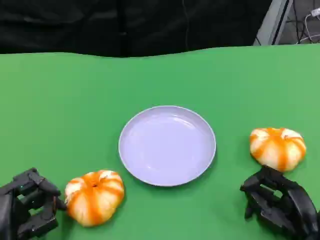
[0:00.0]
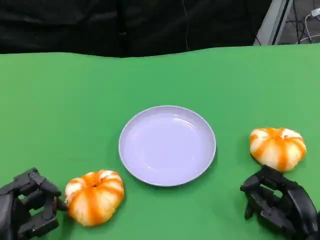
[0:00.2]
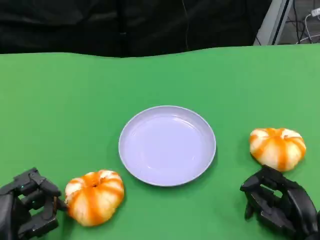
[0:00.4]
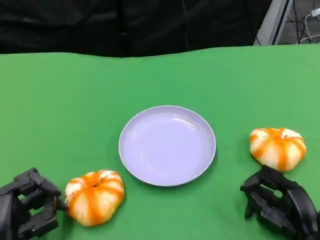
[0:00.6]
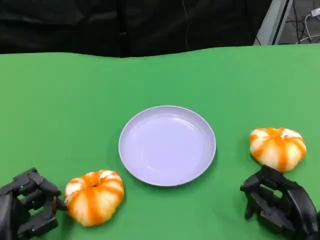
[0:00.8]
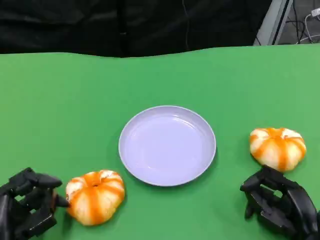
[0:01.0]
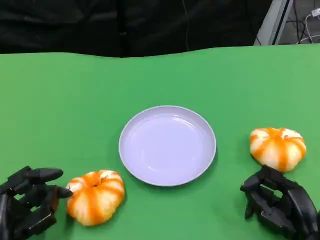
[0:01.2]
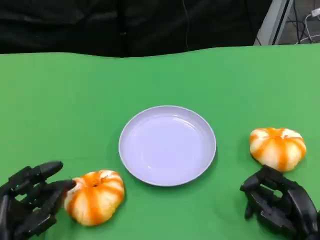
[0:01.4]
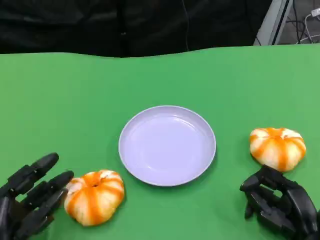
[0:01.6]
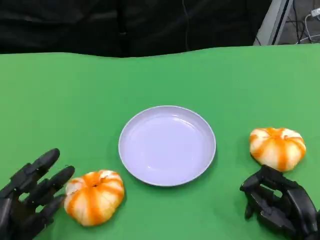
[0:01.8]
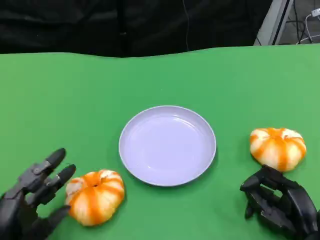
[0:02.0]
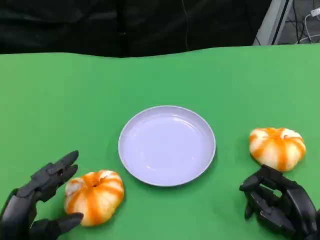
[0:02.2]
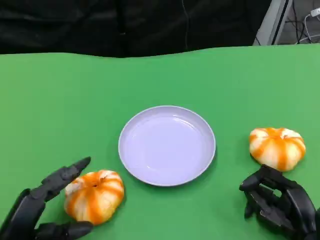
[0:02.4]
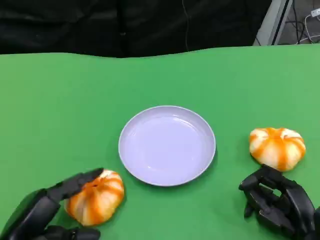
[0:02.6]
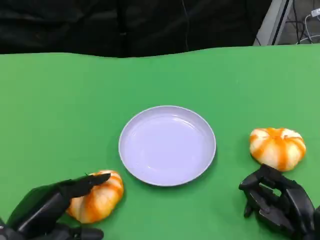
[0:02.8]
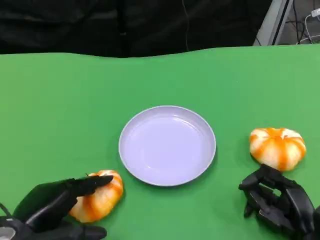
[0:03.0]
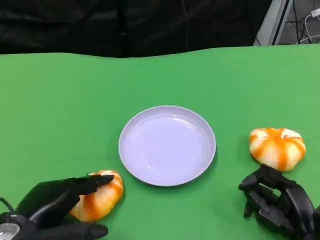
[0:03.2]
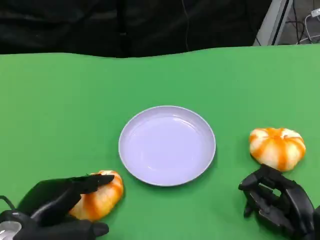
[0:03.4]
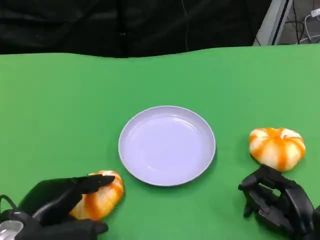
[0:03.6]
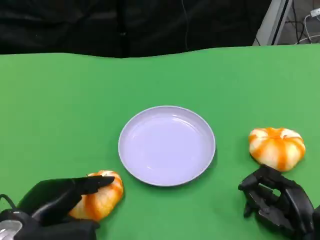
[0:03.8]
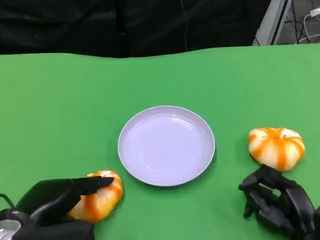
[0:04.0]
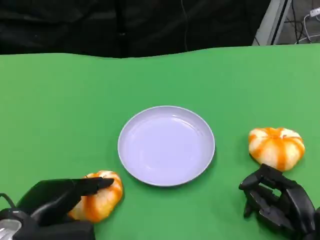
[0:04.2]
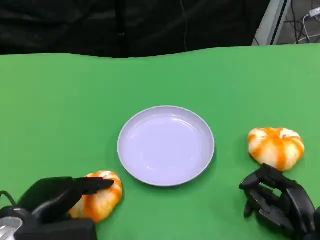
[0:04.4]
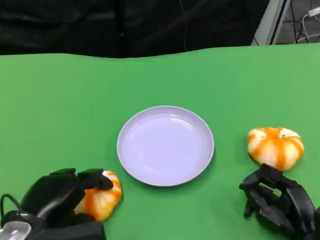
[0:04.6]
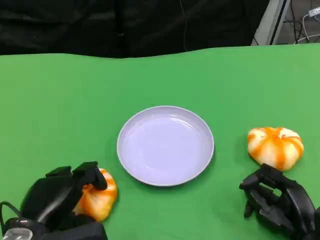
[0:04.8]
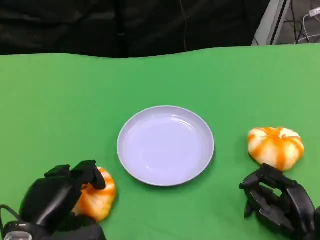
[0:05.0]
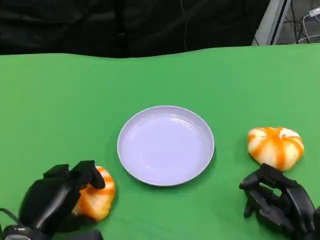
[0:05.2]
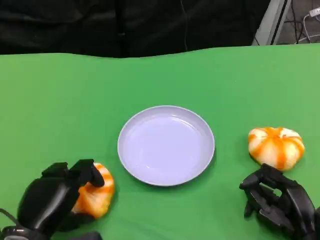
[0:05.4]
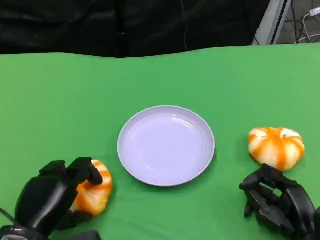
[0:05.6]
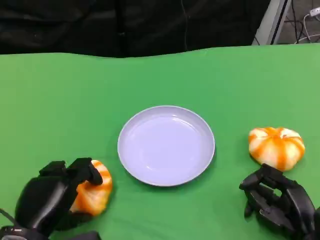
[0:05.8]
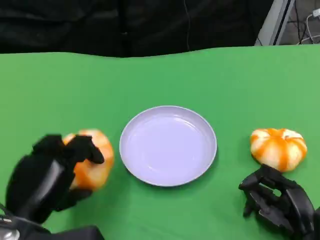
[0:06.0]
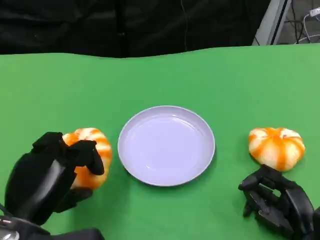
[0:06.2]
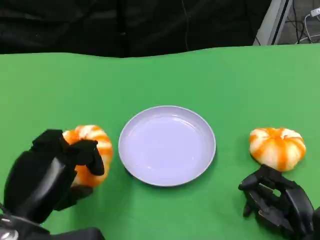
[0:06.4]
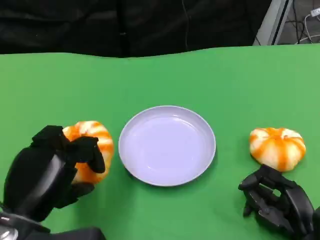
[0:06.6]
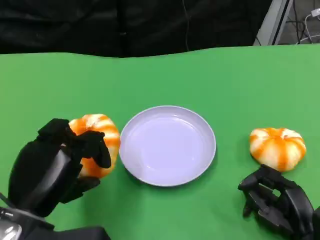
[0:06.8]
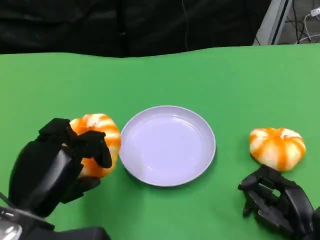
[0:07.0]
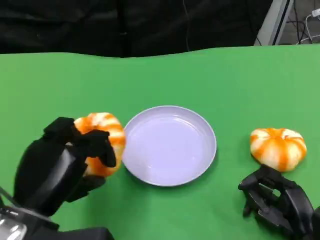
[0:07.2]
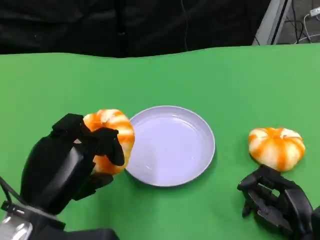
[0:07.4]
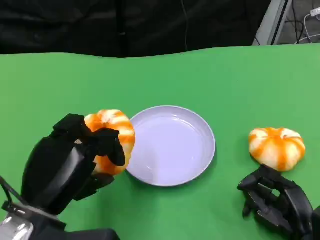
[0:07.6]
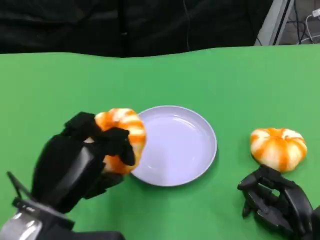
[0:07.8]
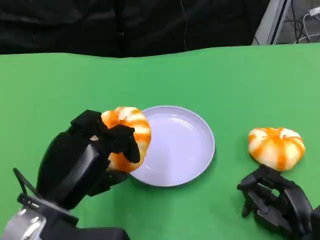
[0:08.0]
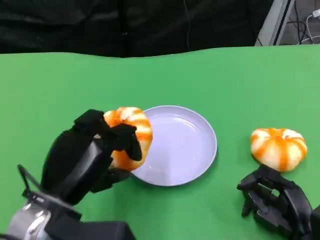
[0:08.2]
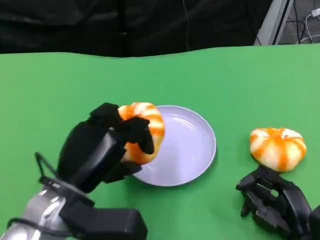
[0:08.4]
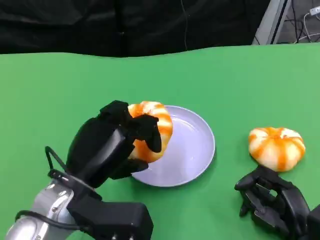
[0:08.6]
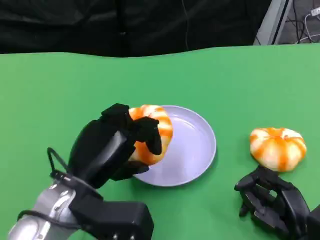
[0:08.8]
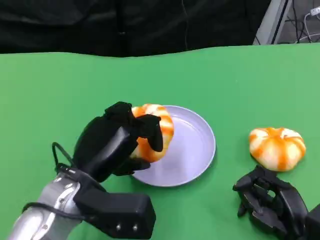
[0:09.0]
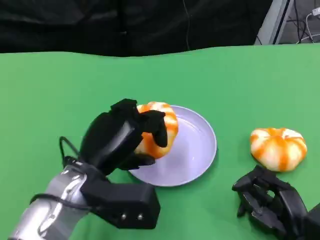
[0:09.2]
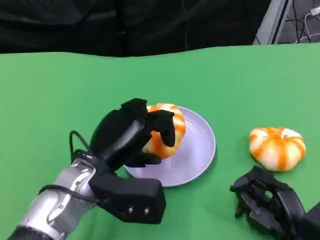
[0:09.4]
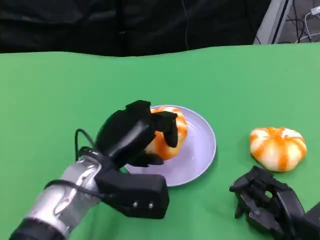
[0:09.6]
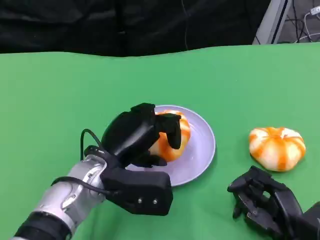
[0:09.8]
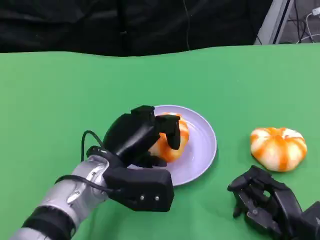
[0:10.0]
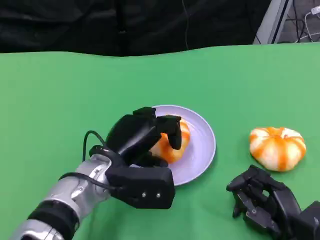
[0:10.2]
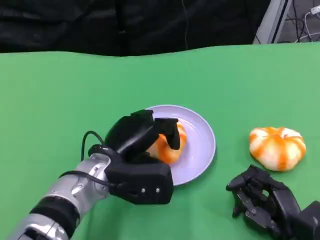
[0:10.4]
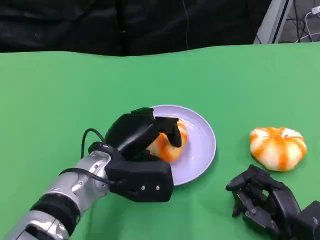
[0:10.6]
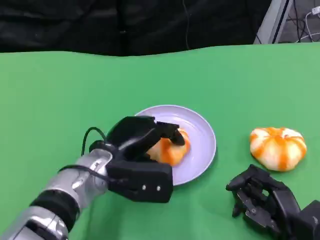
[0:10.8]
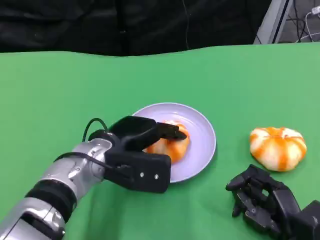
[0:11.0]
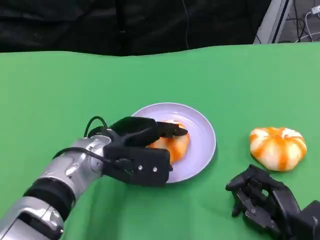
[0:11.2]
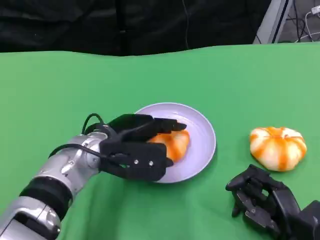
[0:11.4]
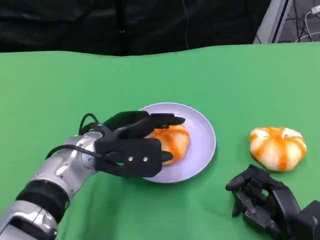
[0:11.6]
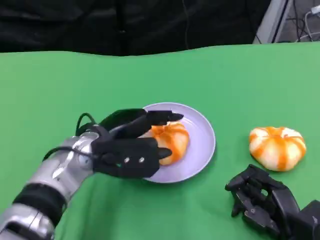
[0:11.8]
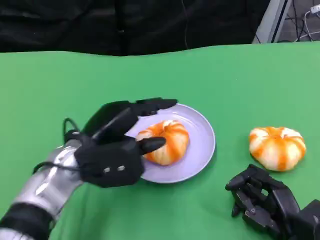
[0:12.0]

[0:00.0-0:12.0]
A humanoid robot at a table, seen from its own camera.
Task of the whole recording: Grasp the bread from the table and place it into the plate.
0:00.0 to 0:01.6: The hands make only small movements.
0:01.6 to 0:03.0: The left hand heads upward, covering approximately 5 cm.
0:03.0 to 0:04.4: The hands make only small movements.
0:06.0 to 0:07.6: The hands make only small movements.
0:07.6 to 0:09.0: The left hand shifts about 5 cm forward.
0:09.0 to 0:10.4: The left hand shifts by some 5 cm.
0:10.4 to 0:12.0: The left hand moves some 5 cm.

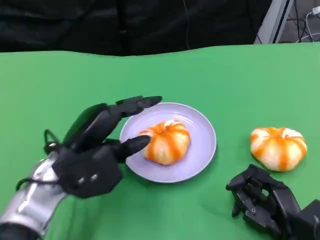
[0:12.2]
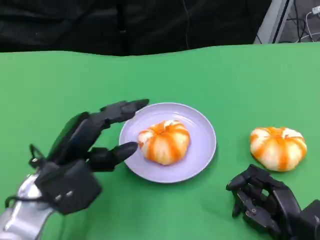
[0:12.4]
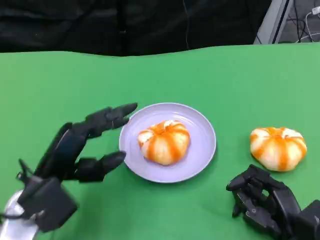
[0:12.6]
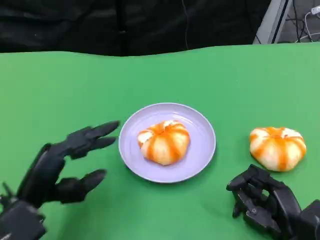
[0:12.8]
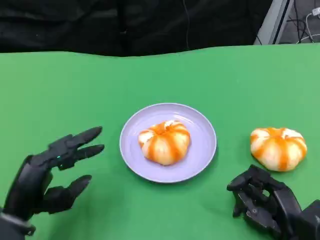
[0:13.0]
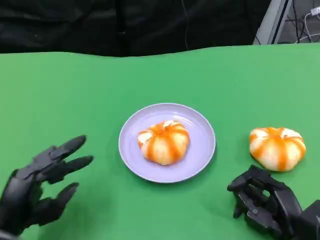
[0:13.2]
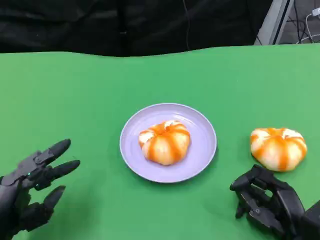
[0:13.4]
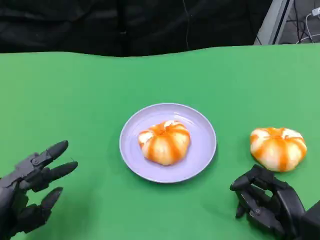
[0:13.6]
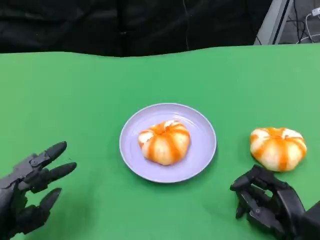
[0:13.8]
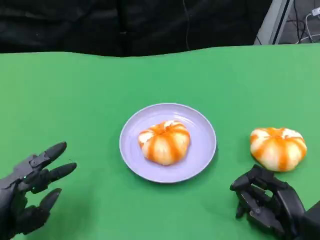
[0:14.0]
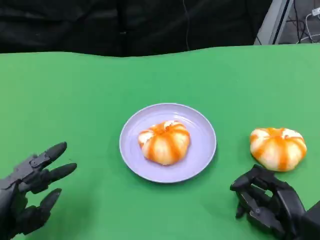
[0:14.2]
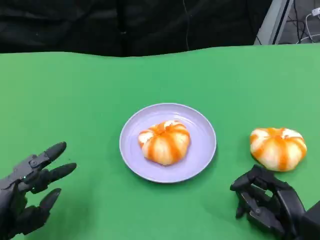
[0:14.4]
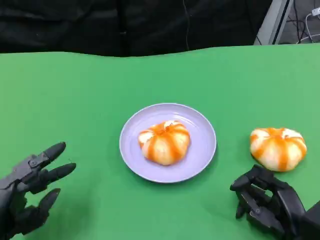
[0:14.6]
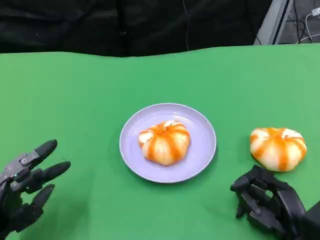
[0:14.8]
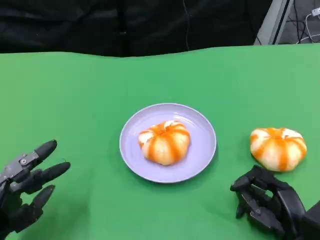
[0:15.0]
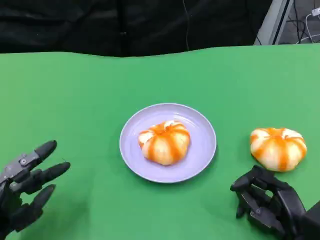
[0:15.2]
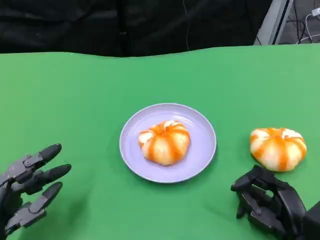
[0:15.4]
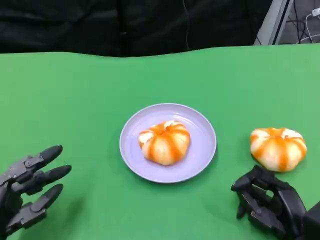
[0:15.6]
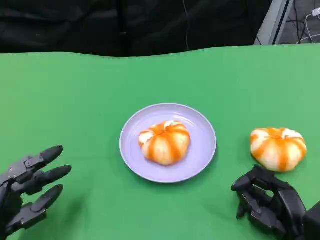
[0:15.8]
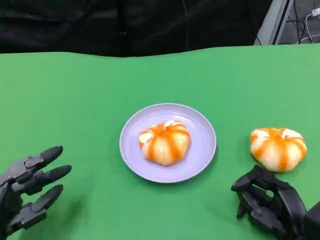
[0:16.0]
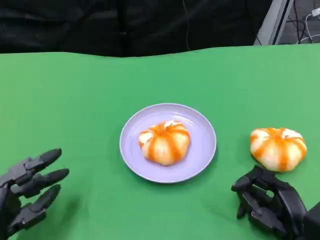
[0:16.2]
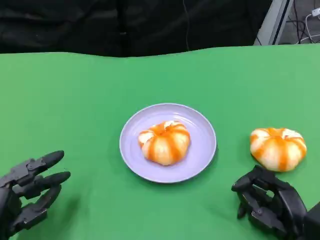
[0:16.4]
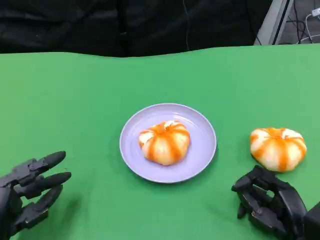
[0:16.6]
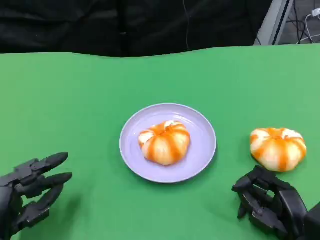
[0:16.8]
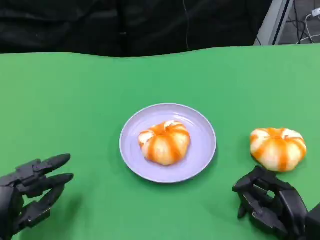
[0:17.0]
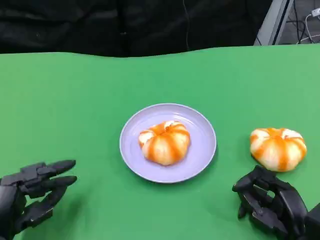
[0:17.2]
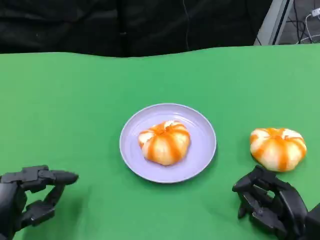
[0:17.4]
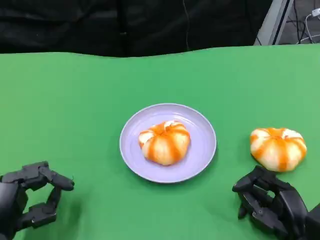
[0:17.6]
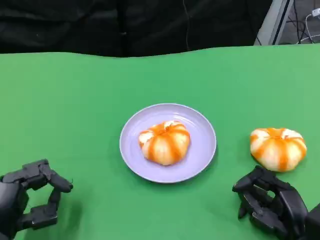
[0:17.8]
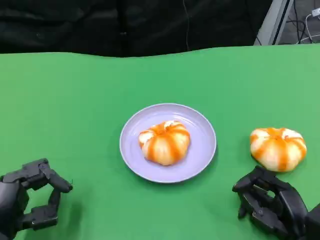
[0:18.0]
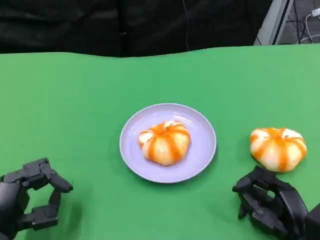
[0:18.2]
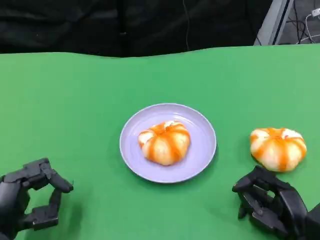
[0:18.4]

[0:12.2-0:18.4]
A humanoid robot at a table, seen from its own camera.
Task of the whole recording: Grasp the bread from the table and place it into the plate.
0:12.2 to 0:13.8: The left hand goes roughly 15 cm backward, to the left and downward.
0:13.8 to 0:16.8: There are only small adjustments of the hands.
0:16.8 to 0:18.4: The two hands keep their place.

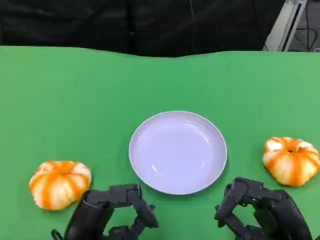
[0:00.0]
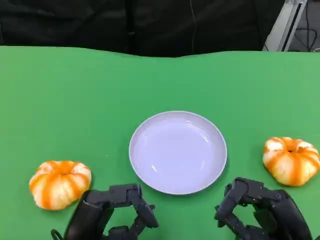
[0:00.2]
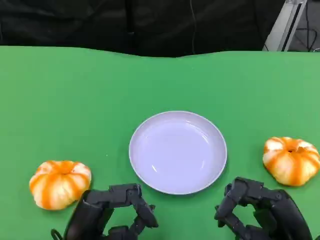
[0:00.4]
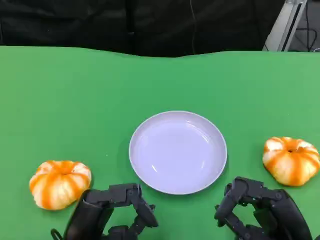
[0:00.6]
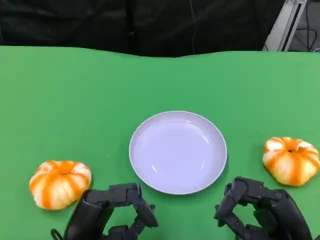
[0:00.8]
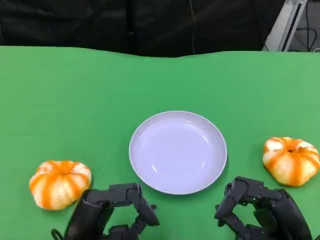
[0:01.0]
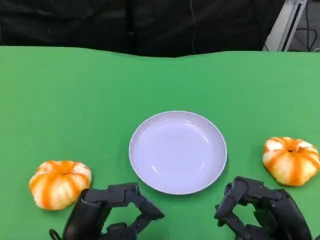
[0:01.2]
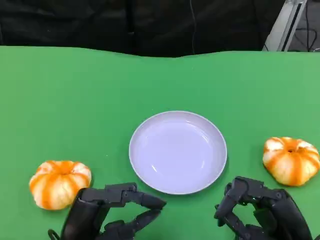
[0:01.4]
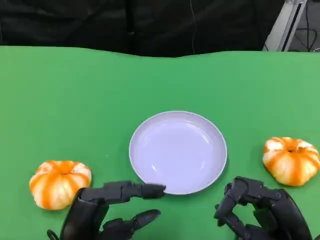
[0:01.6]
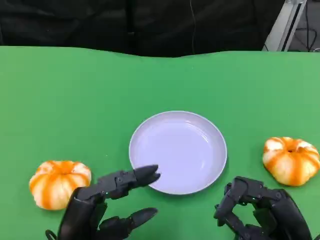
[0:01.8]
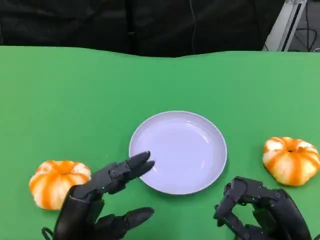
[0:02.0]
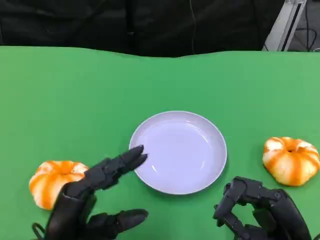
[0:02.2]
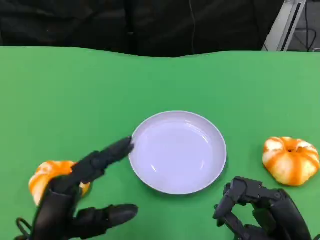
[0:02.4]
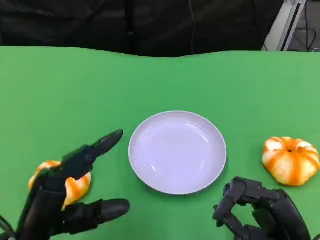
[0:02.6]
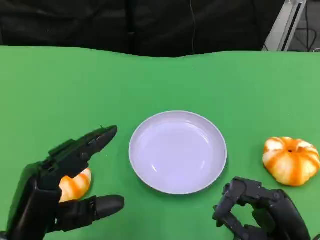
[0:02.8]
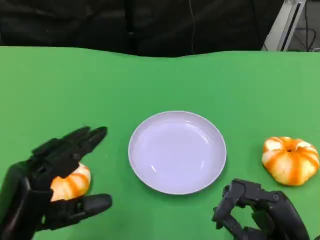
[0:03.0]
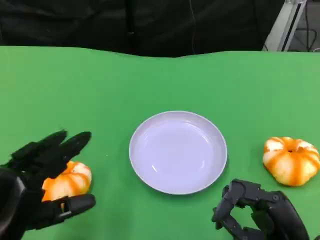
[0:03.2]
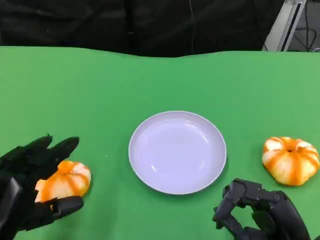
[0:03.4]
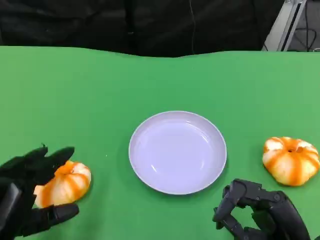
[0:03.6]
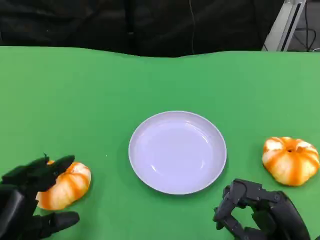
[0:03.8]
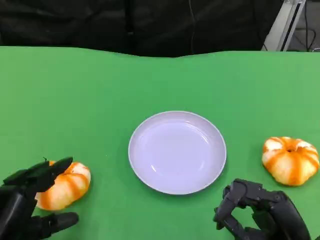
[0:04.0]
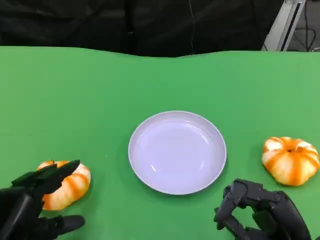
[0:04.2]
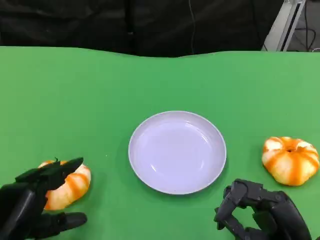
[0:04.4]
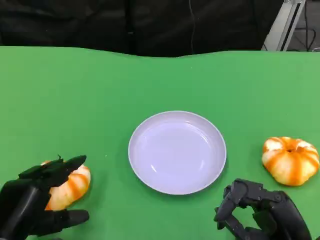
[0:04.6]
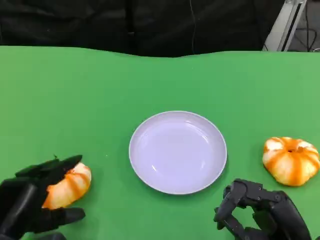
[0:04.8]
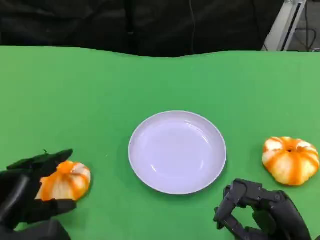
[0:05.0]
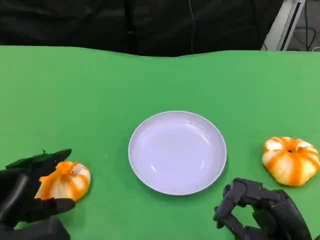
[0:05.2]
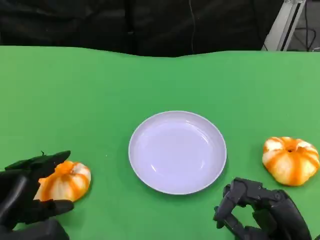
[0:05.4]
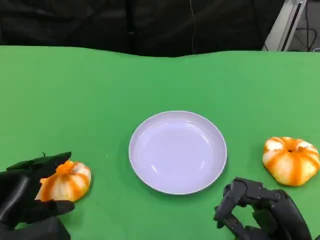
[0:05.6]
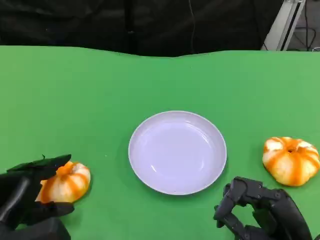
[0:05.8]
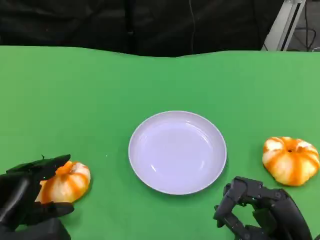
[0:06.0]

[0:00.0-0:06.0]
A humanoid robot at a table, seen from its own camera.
Task of the whole recording: Grasp the bread from the table and place it into the plate.
0:00.0 to 0:01.6: Both hands stay put.
0:01.6 to 0:03.0: The left hand is displaced to the left by about 5 cm.
0:03.0 to 0:04.4: The left hand is displaced downward by some 5 cm.
0:04.4 to 0:06.0: The hands move only a little.
